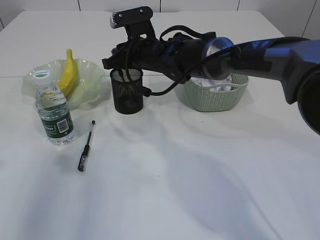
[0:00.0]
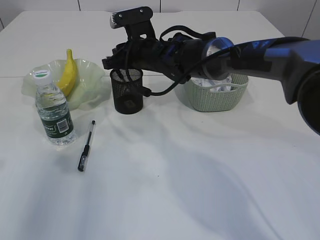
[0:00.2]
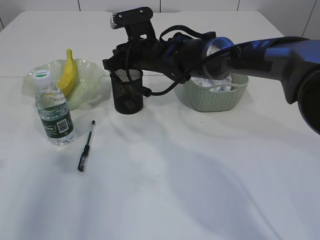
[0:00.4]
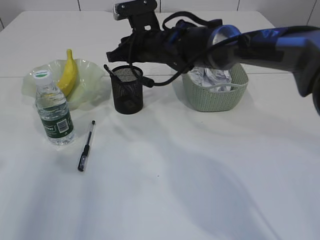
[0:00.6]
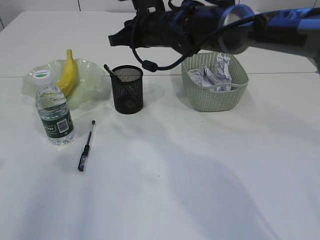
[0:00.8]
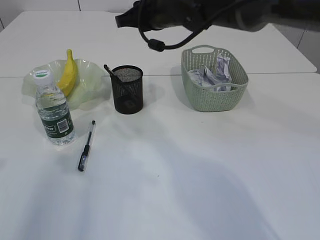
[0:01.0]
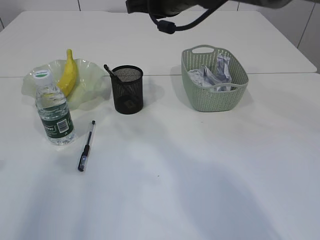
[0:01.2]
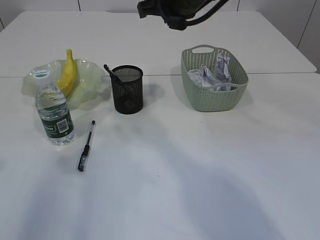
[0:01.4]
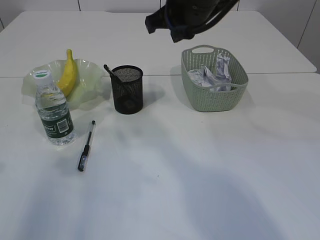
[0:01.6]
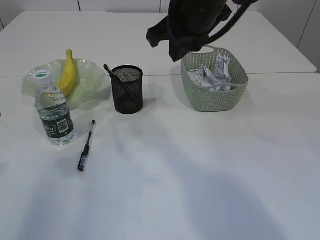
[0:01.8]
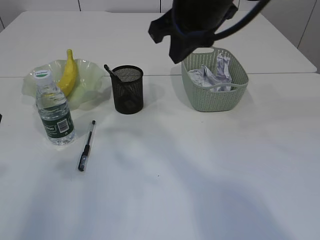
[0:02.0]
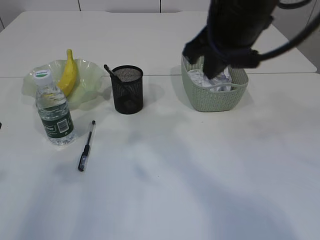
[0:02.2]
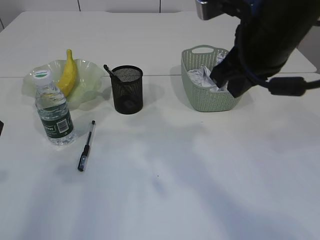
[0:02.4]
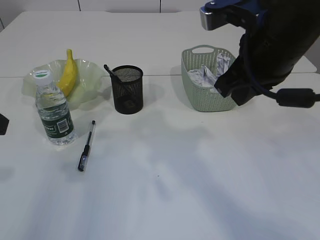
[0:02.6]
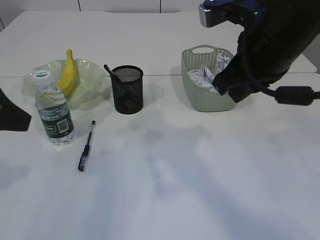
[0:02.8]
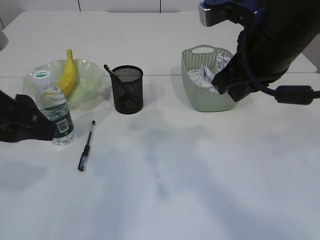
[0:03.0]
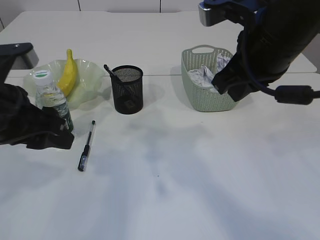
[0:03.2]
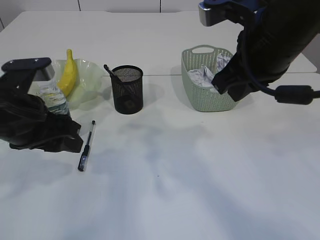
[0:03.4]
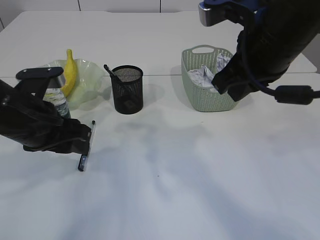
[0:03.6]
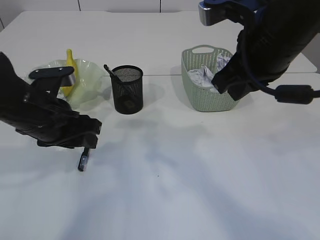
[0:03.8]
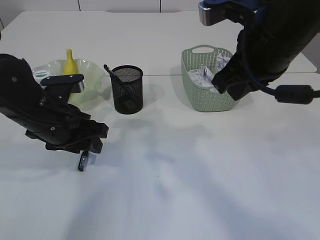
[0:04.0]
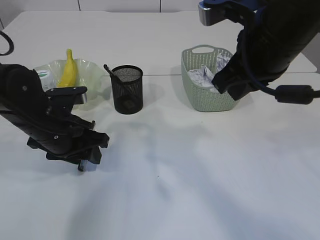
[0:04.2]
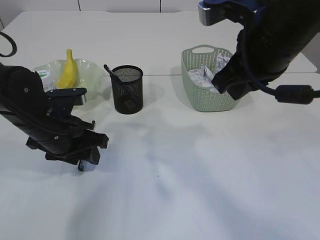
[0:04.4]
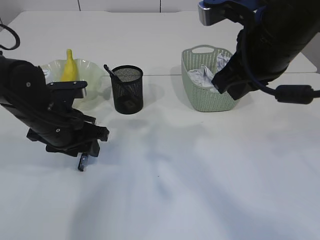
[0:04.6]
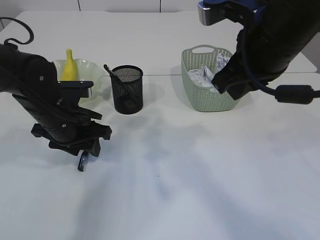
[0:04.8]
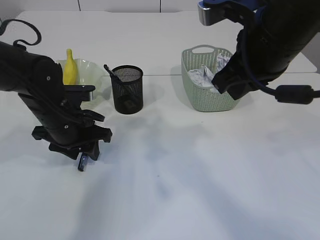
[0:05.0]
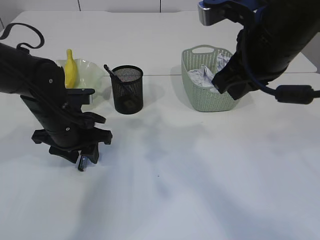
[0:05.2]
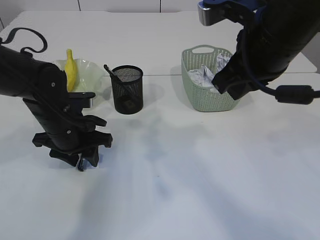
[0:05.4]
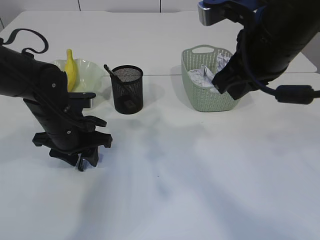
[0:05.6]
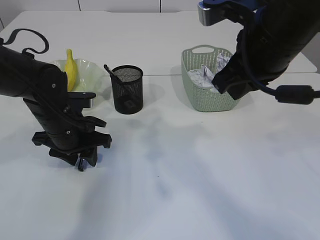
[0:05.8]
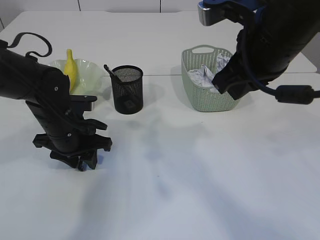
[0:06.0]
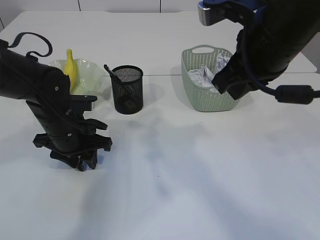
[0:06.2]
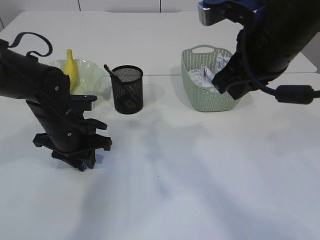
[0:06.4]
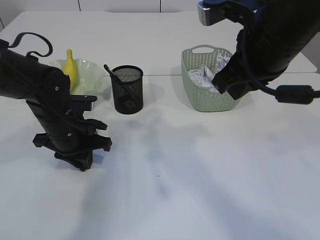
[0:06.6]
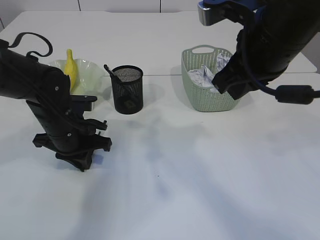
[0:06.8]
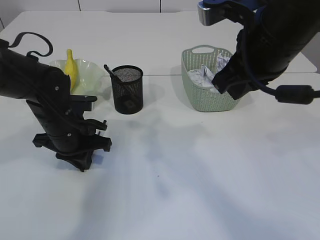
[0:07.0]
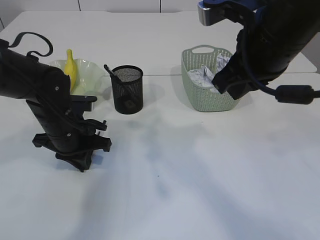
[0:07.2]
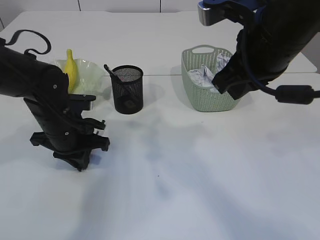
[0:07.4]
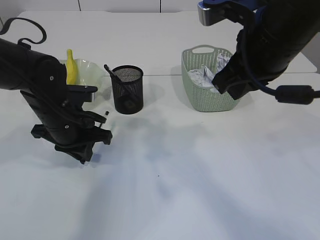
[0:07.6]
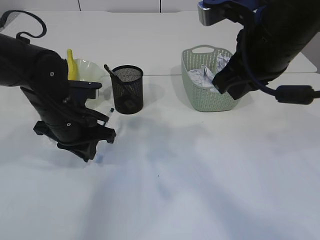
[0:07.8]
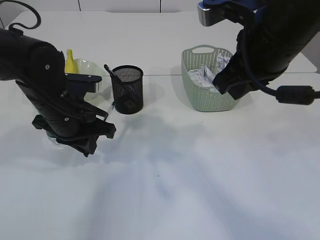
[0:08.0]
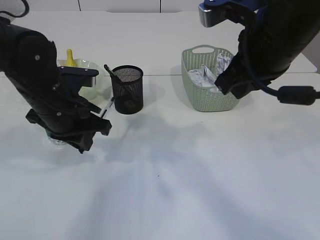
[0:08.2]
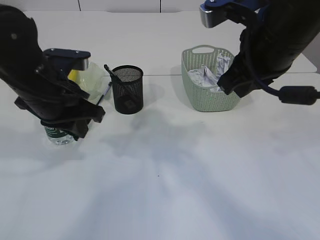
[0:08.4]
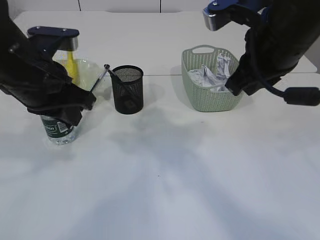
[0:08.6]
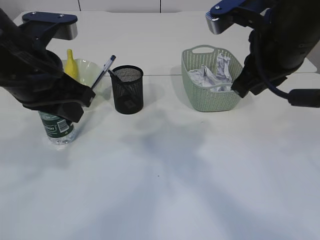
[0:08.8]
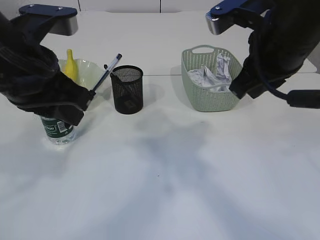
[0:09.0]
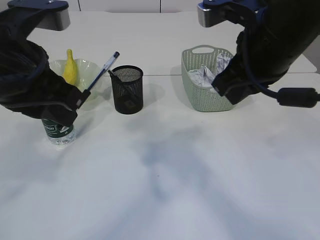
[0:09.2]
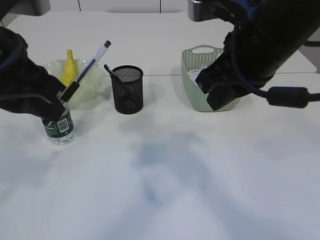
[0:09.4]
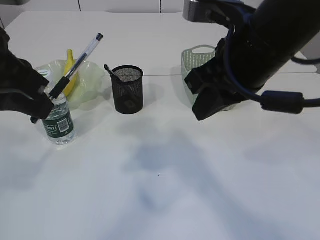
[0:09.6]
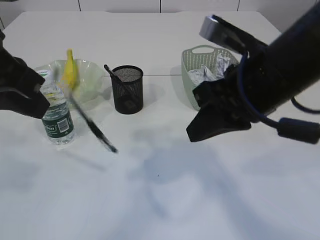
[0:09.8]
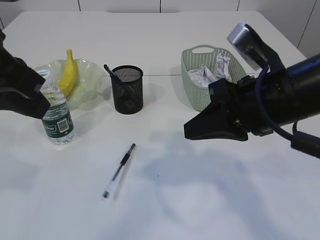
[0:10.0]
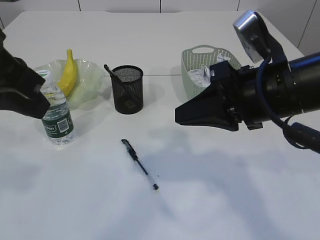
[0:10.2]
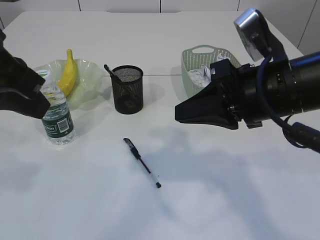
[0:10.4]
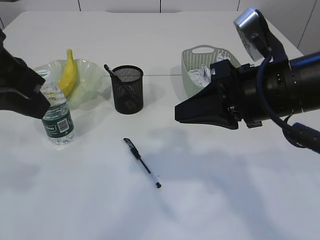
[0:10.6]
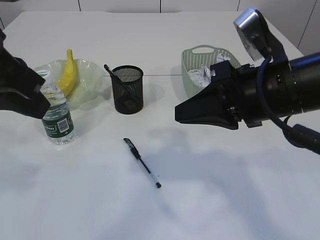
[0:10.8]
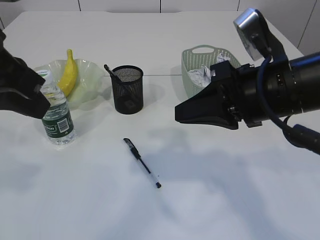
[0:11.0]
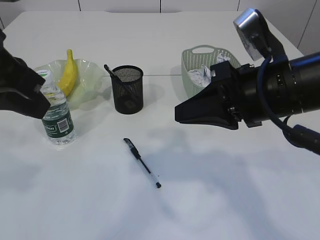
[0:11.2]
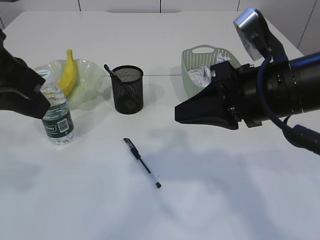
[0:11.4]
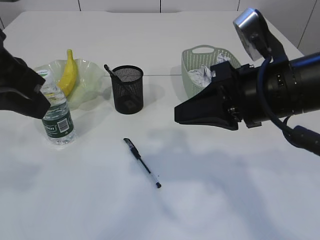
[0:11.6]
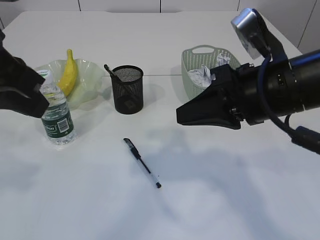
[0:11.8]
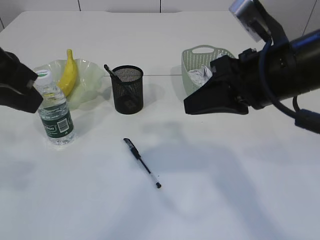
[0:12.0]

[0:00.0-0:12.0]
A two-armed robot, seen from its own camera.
0:00.0 to 0:01.6: The right gripper moves upward, backward and to the right, roughly 15 cm.
0:01.6 to 0:03.0: The right gripper moves backward and to the right, some 15 cm, while the left gripper is displaced to the right by roughly 5 cm.
0:03.0 to 0:04.4: The left gripper goes about 15 cm downward and forward.
0:04.4 to 0:06.0: The grippers stay close to where they were, moving slightly.
0:06.0 to 0:07.6: The left gripper closes up.
0:07.6 to 0:09.0: The left gripper shifts about 20 cm upward and backward.
0:09.0 to 0:10.4: The left gripper shifts by roughly 5 cm; the right gripper shifts by some 5 cm.
0:10.4 to 0:12.0: There are only small adjustments of the grippers.

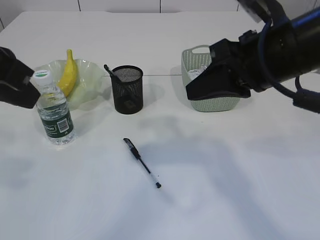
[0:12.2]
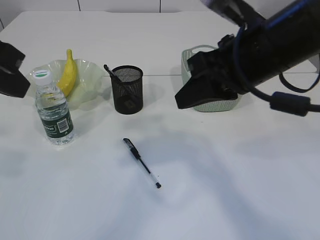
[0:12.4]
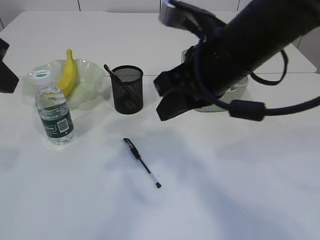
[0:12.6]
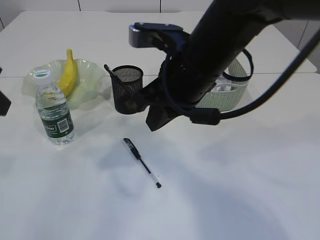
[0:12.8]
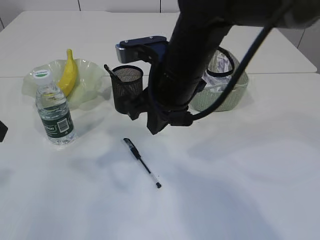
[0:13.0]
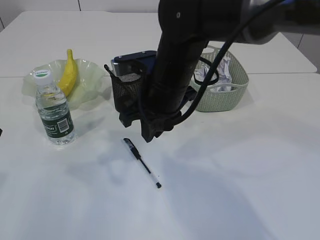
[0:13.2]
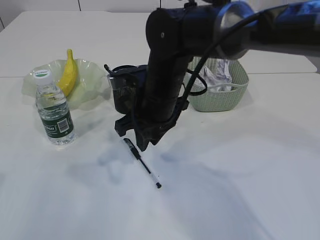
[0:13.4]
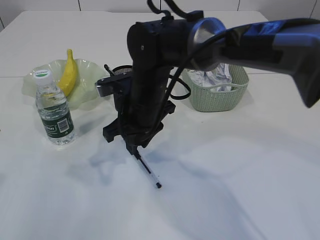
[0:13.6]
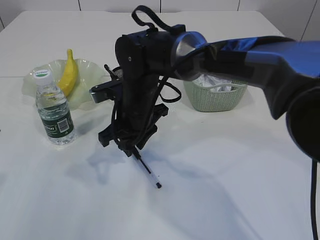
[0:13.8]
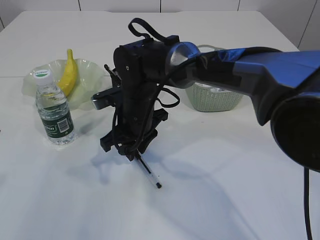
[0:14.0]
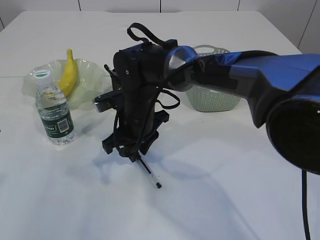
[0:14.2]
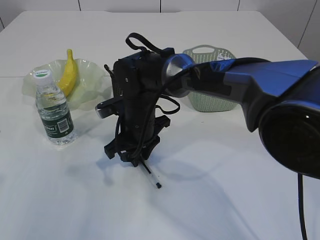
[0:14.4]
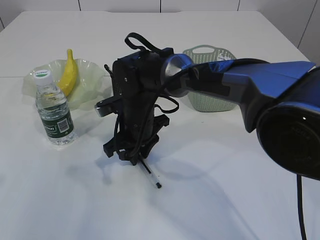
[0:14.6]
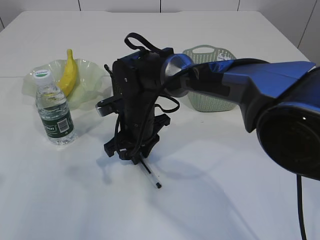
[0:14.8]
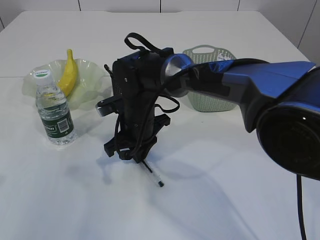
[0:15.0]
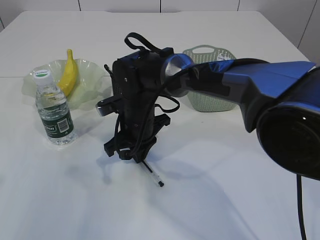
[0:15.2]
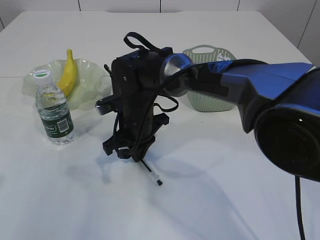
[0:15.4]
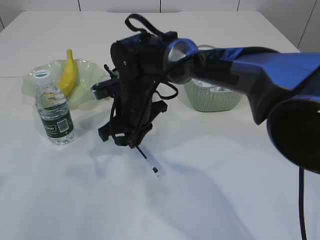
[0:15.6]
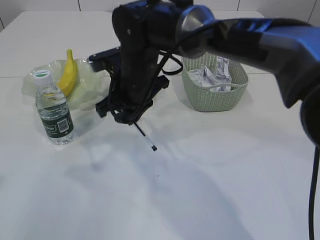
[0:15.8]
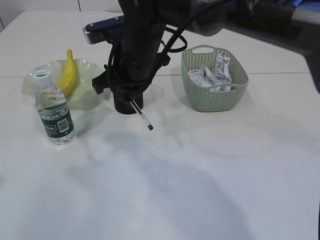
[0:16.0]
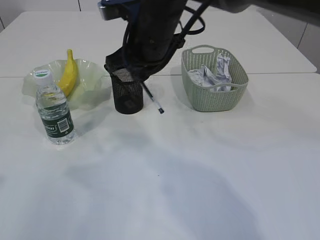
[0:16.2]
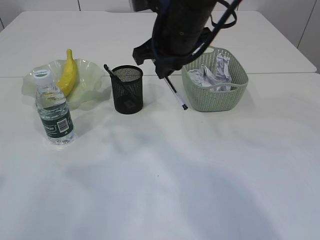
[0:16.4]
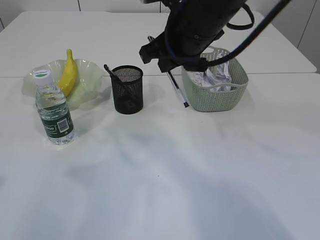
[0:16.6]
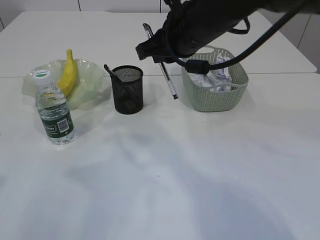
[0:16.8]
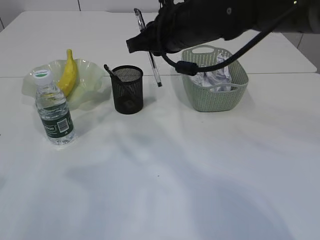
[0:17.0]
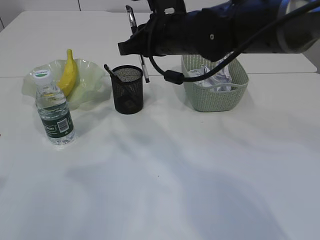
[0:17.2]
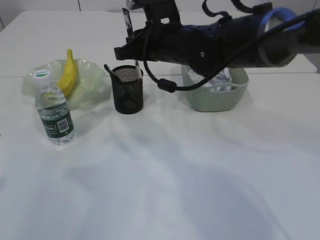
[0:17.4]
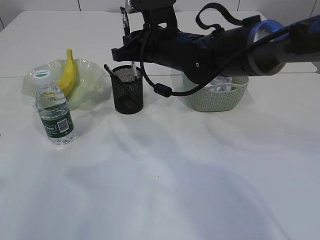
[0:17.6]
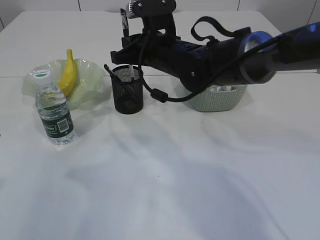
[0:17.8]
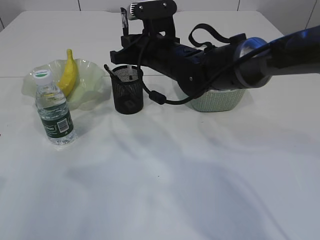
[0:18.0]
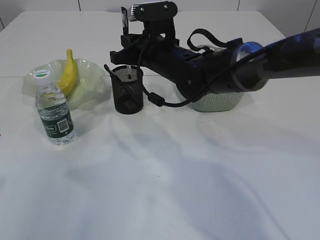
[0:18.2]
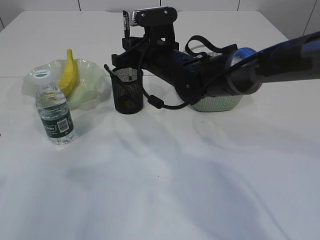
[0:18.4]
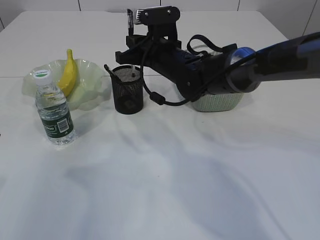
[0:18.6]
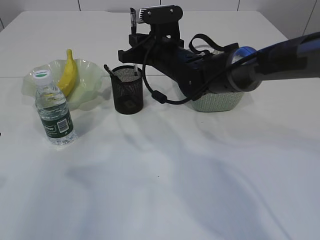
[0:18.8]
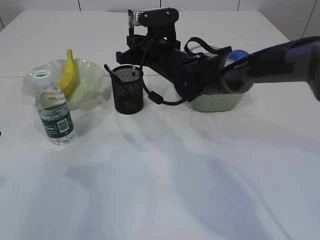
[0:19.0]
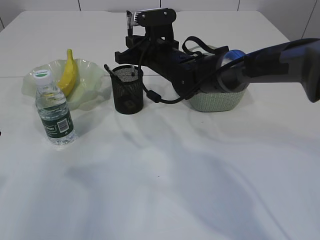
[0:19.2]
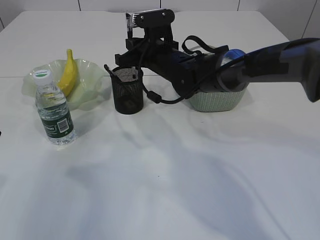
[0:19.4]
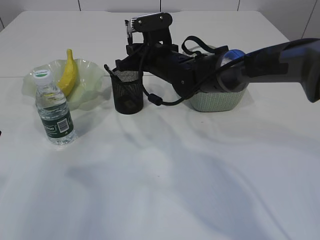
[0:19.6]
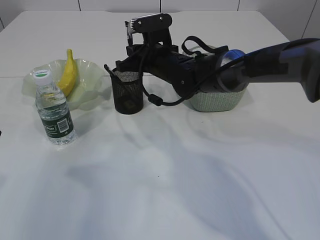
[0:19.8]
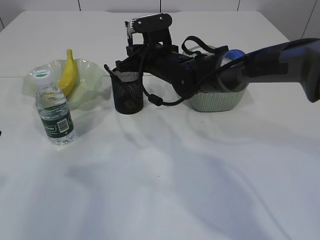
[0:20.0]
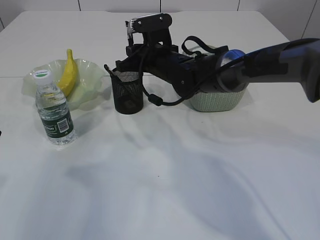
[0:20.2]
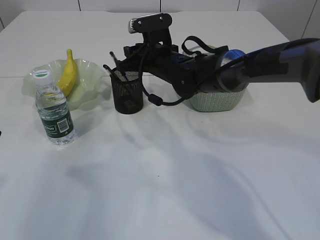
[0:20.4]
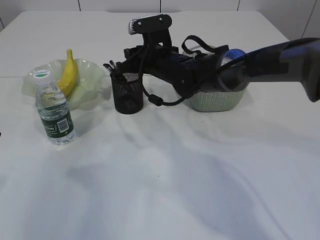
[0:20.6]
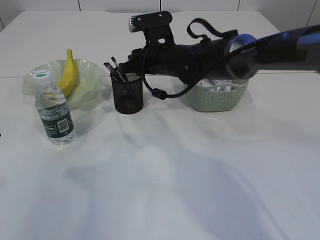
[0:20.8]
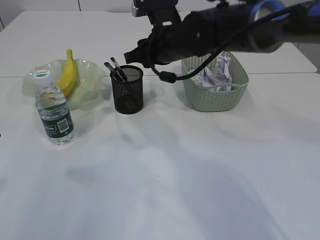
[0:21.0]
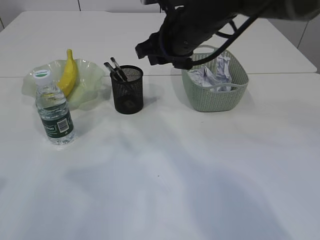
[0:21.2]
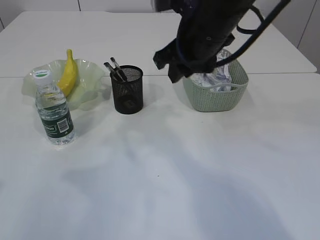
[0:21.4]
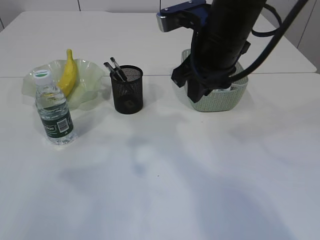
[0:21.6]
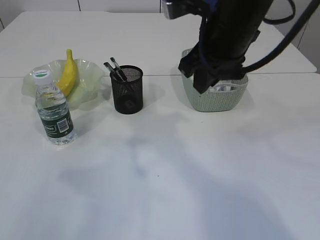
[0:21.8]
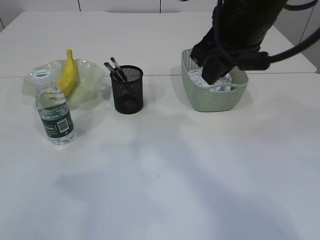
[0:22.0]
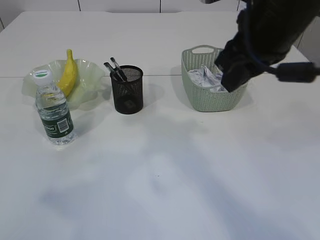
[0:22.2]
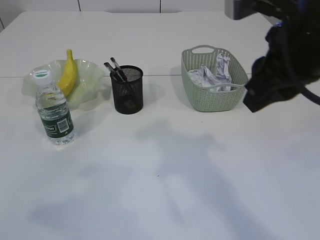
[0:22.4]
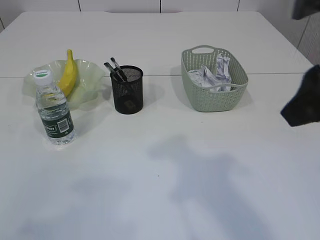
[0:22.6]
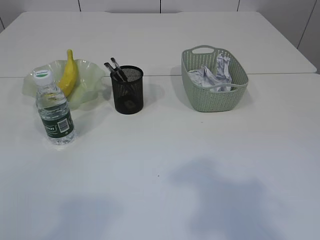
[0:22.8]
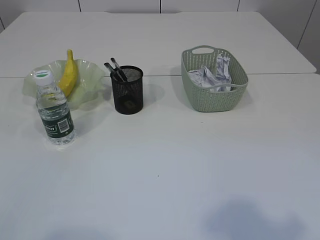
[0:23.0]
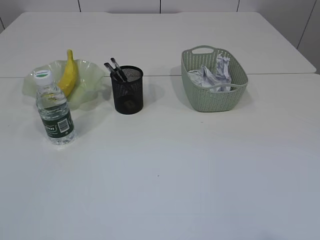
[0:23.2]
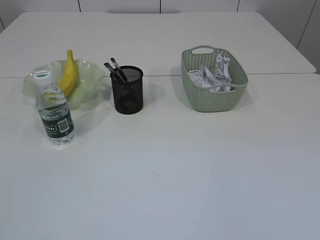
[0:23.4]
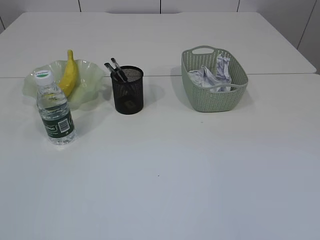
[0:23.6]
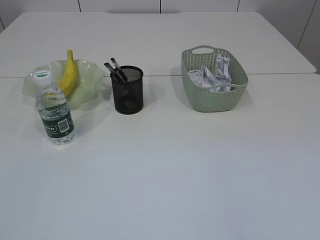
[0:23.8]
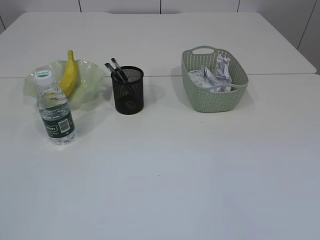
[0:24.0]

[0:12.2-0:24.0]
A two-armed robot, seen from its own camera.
Step, 0:12.2 to 0:15.6: Pick up the pen with right arm.
Step, 0:15.8 to 0:21.0: Place the pen into the pen holder.
0:12.2 to 0:13.6: The right gripper shifts roughly 20 cm to the left, downward and forward, and opens its fingers. The left gripper moves to the left and downward, roughly 10 cm.
0:13.6 to 0:15.2: The right gripper moves downward, roughly 5 cm.
0:15.2 to 0:16.6: The right gripper shifts about 20 cm upward and to the right.
0:16.6 to 0:18.2: The right gripper moves downward and forward, about 10 cm.
0:18.2 to 0:19.6: The grippers stay close to where they were, moving slightly.
0:19.6 to 0:21.0: The right gripper is displaced upward by some 5 cm, and opens up.
0:21.0 to 0:22.6: The right gripper goes some 30 cm backward, to the right and upward; the left gripper heads backward and upward, covering some 15 cm.
0:22.6 to 0:24.0: The left gripper moves backward, about 10 cm, and opens. The right gripper travels backward and to the right by about 25 cm.
